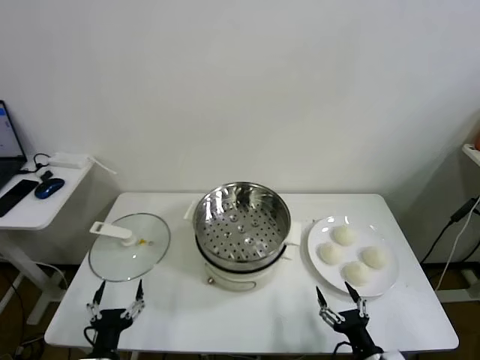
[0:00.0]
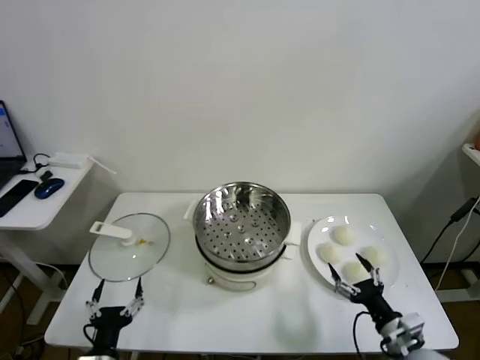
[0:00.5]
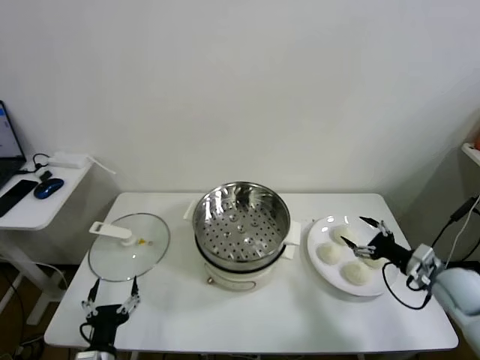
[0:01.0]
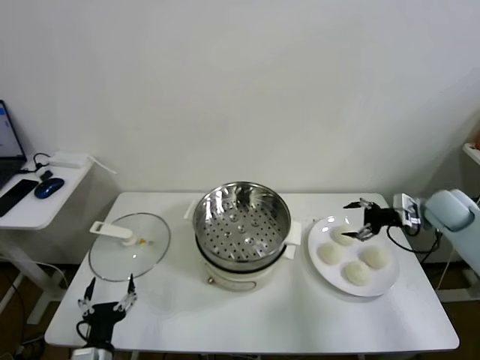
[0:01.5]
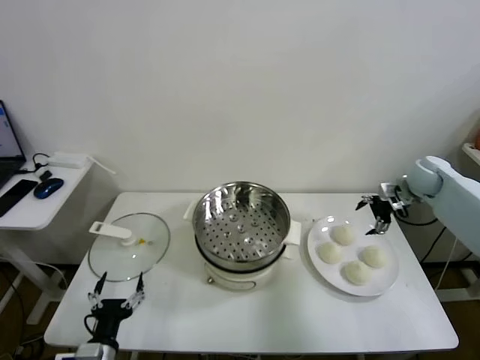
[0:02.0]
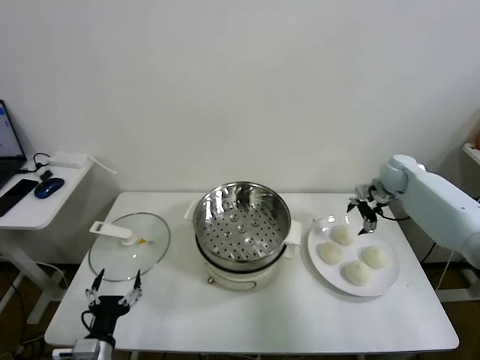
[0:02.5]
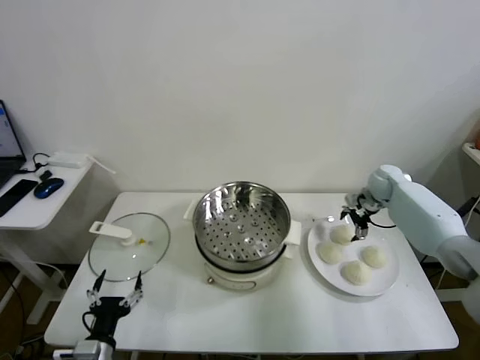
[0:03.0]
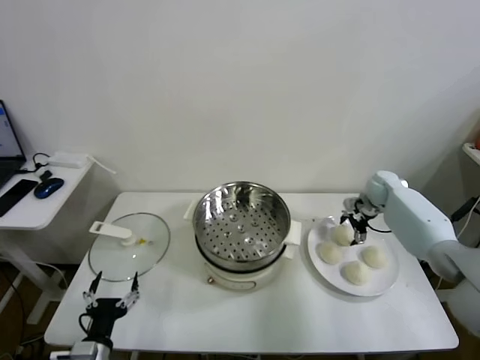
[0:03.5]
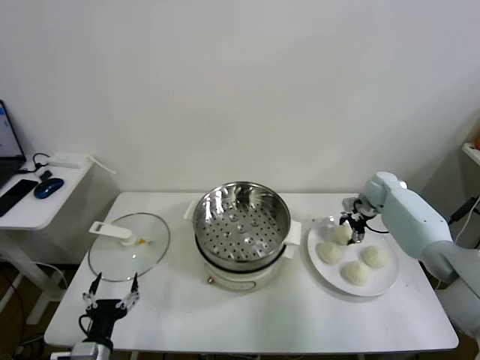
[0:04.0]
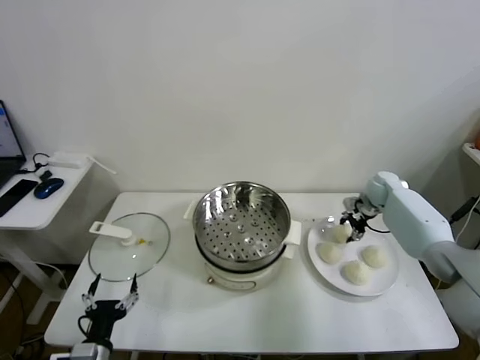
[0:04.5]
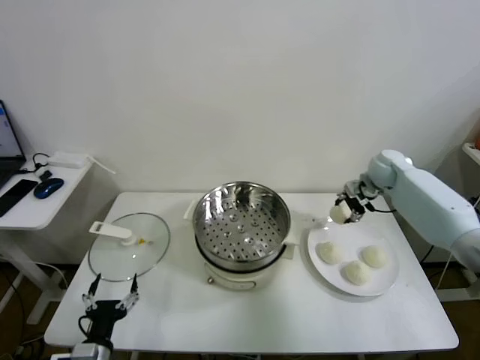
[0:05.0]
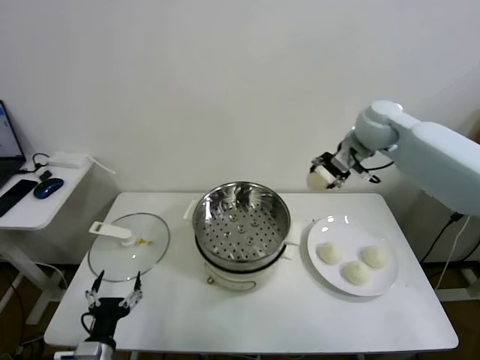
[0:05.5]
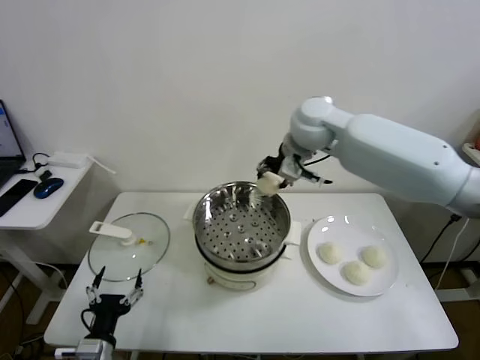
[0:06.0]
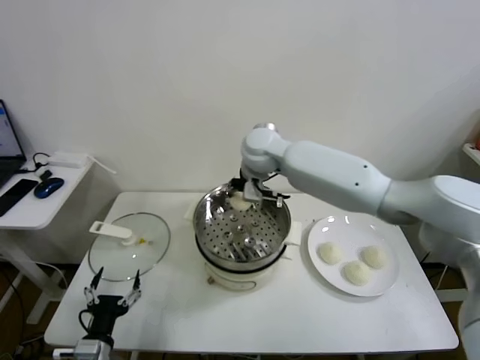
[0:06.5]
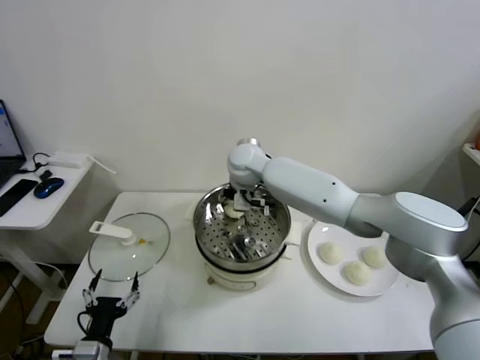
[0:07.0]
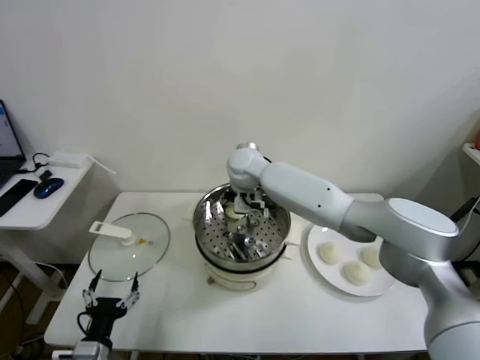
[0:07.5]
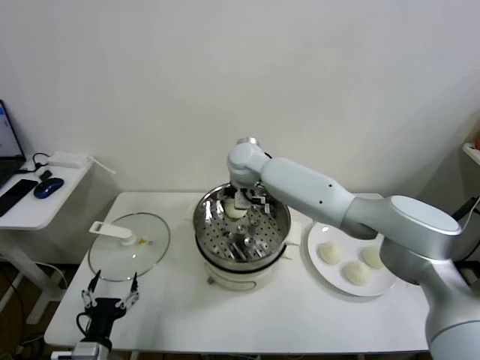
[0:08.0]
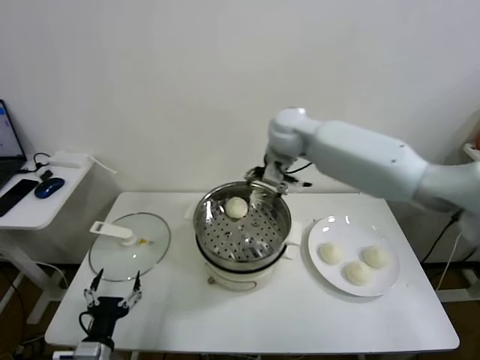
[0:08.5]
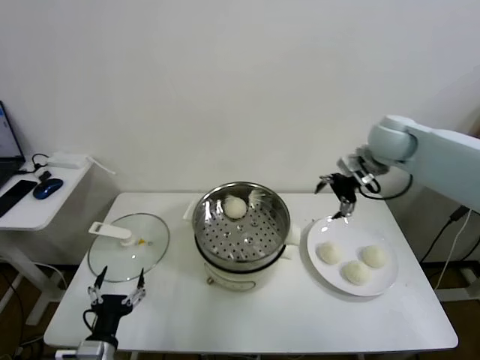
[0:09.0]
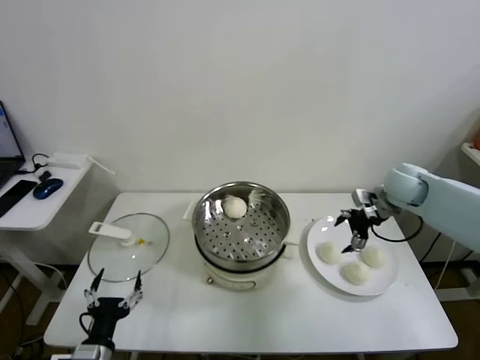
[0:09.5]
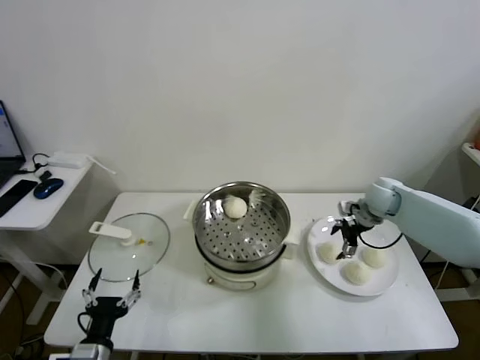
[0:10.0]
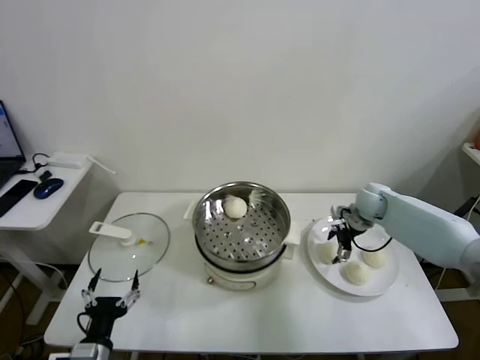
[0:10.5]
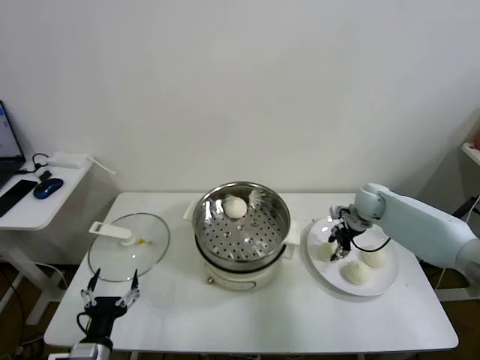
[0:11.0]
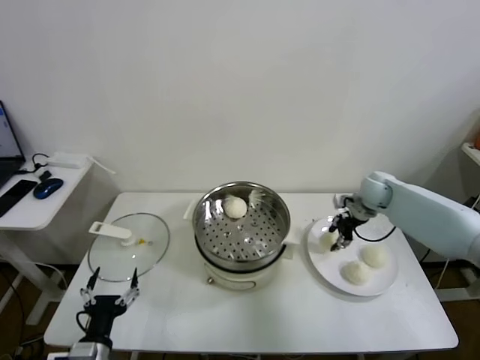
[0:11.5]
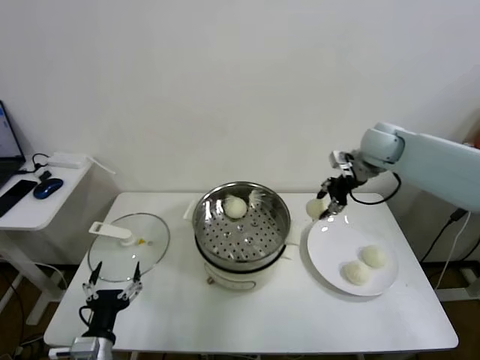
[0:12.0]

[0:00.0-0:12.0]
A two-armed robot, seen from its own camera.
Task of the whole recording: take steamed baozi put them in steamer.
Step, 0:00.0 to 0:04.0: Grasp the baozi in the plate with right gripper.
Step, 0:04.5 to 0:08.0: Place the baozi on the steamer with right gripper.
Step, 0:08.5 to 0:11.0: Grasp the baozi in the plate with right gripper.
0:02.0 to 0:04.0: The right gripper is displaced downward by some 10 cm, and closes its fingers.
0:04.0 to 0:06.0: The right gripper shifts some 40 cm to the left and upward.
0:06.0 to 0:08.0: The right gripper goes roughly 15 cm to the left and downward, and opens its fingers.
0:08.0 to 0:10.0: The right gripper is displaced to the right by some 35 cm.
0:10.0 to 0:12.0: The right gripper travels upward by about 15 cm, and closes up.

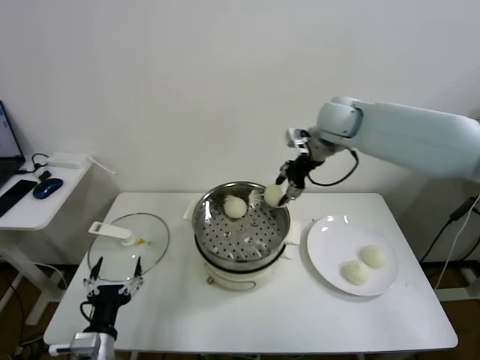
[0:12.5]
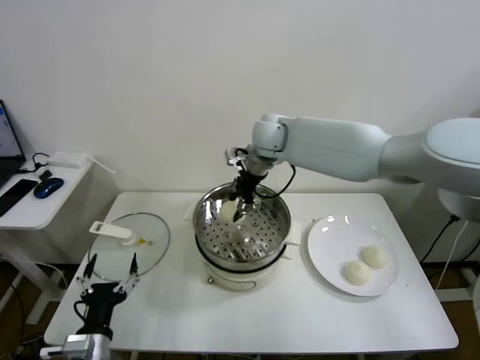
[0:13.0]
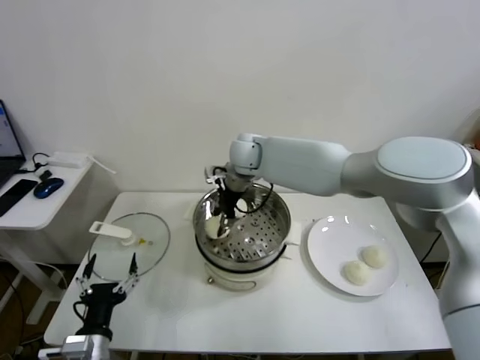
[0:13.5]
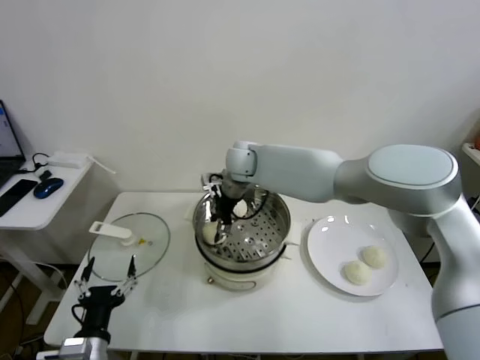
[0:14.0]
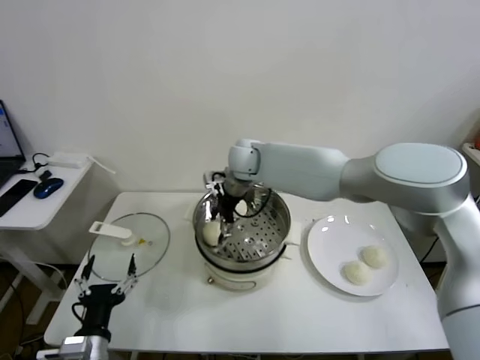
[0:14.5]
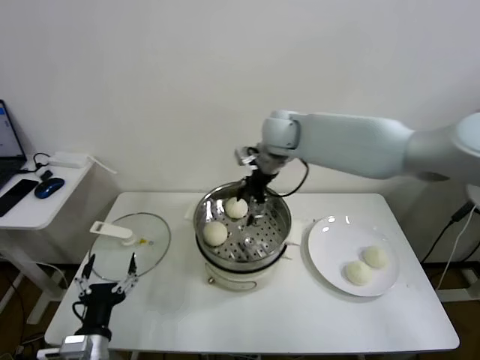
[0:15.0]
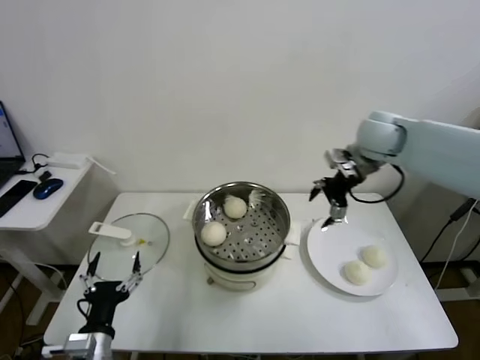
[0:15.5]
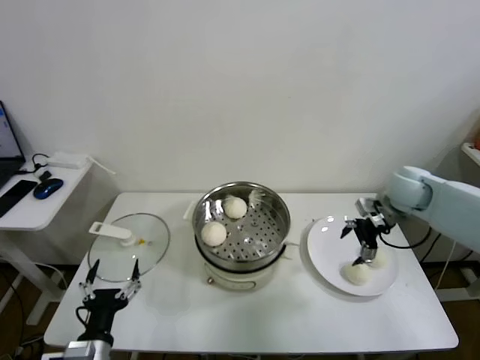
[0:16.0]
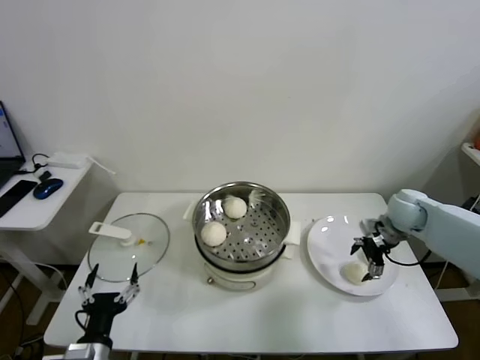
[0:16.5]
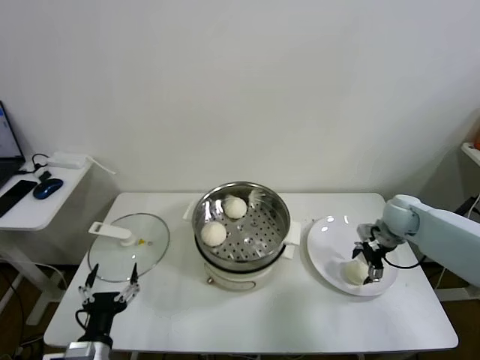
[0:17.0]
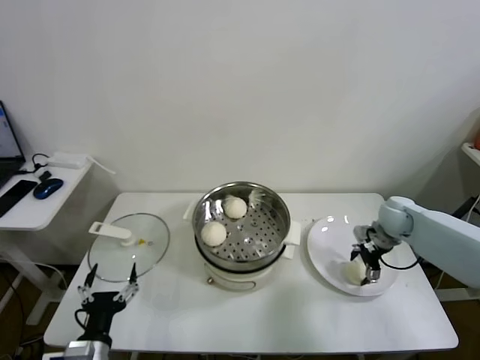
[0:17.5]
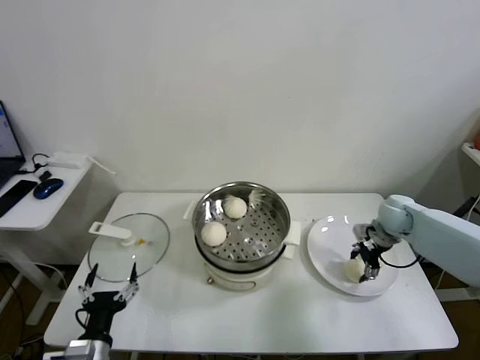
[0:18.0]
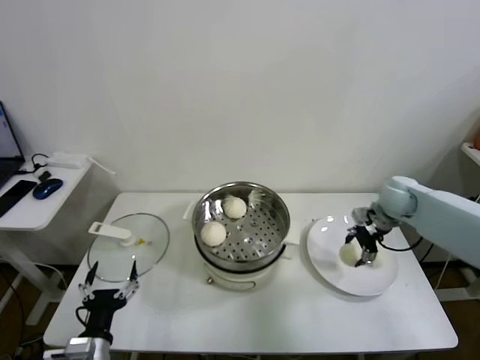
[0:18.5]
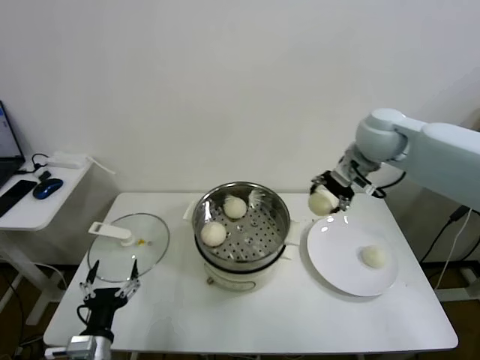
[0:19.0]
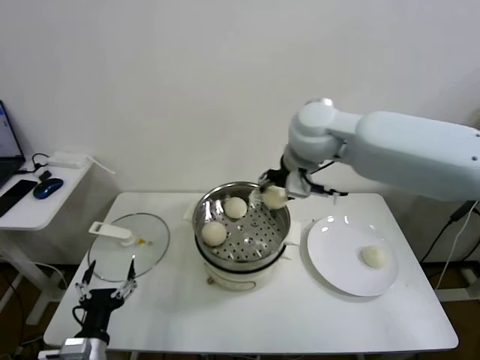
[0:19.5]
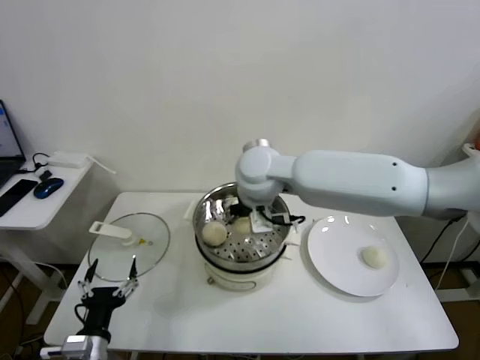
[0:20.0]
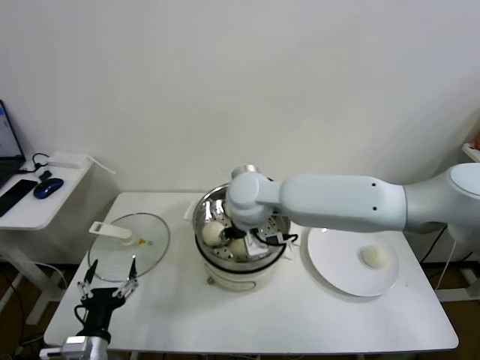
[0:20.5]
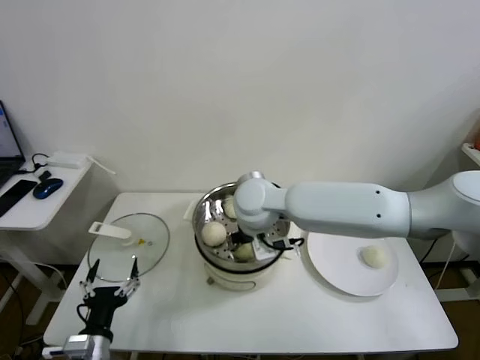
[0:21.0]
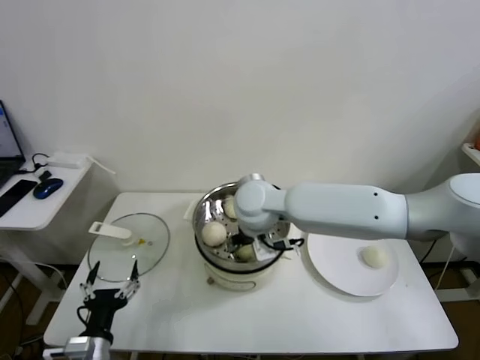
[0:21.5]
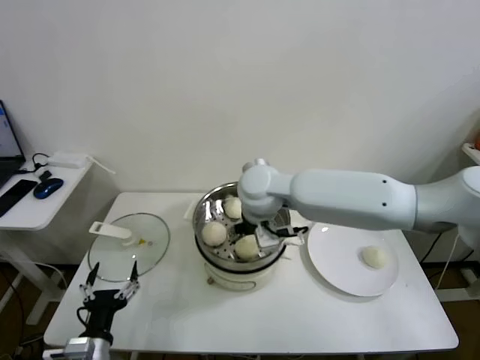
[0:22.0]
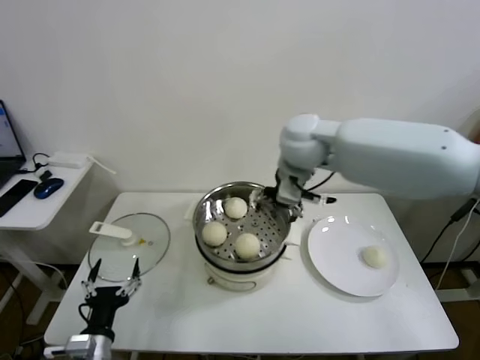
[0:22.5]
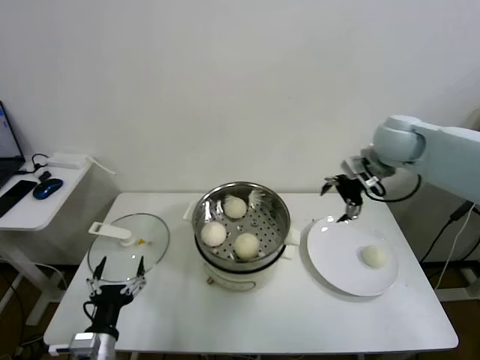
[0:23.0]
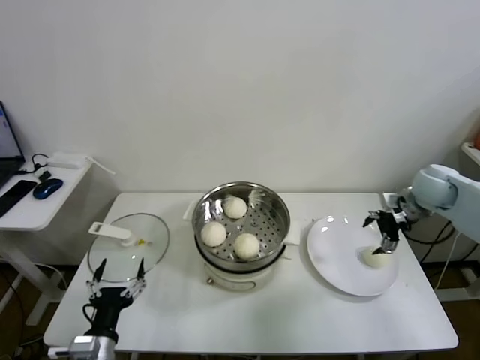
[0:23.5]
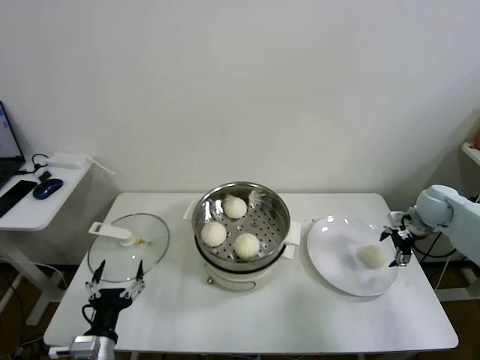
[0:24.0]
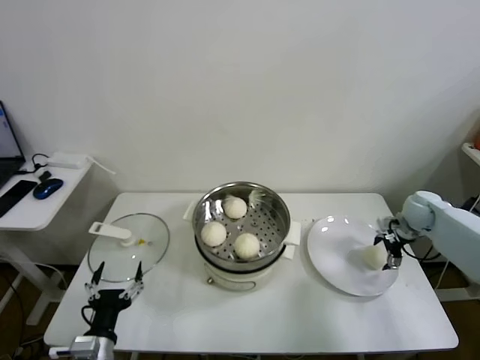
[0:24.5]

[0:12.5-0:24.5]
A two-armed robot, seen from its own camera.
Task of the whole recording: take steamed baozi put them in steamer.
Step, 0:12.5 to 0:14.5: Place the baozi on the steamer with right gripper.
Step, 0:15.0 to 0:17.5: Grasp the baozi in the plate with right gripper.
Step, 0:18.0 to 0:21.5: Place the baozi on the steamer with right gripper.
0:12.5 to 0:14.5: The right gripper goes some 20 cm to the left and downward, and opens up.
0:14.5 to 0:16.5: The right gripper goes about 40 cm to the right.
0:16.5 to 0:18.5: The right gripper closes its fingers.
0:18.5 to 0:20.5: The right gripper is displaced to the left by roughly 35 cm.
0:20.5 to 0:22.5: The right gripper heads to the right, upward and forward, covering approximately 15 cm, and opens.
0:22.5 to 0:24.5: The right gripper heads to the right and downward, covering roughly 40 cm.

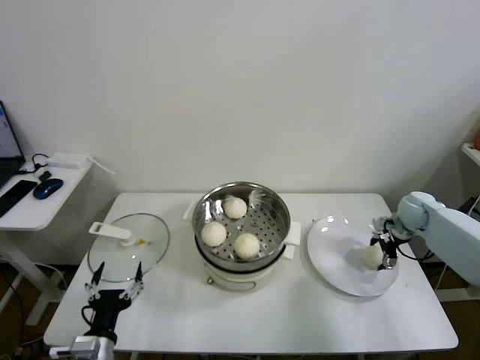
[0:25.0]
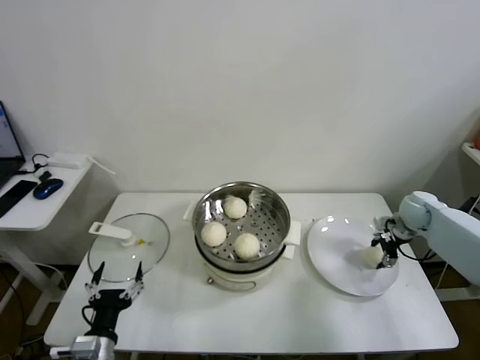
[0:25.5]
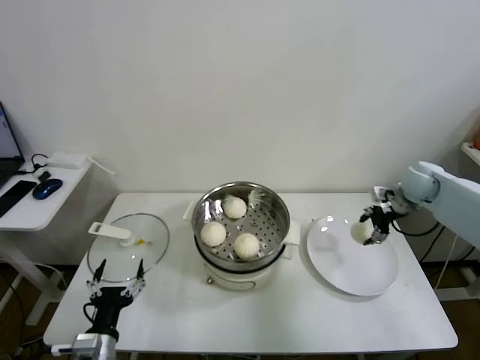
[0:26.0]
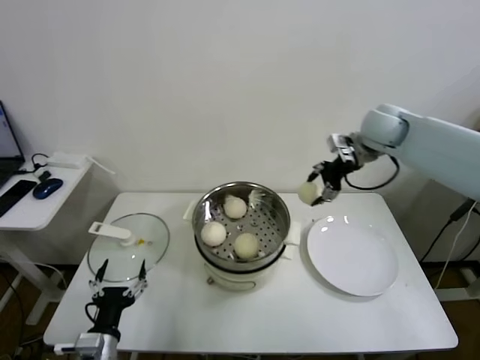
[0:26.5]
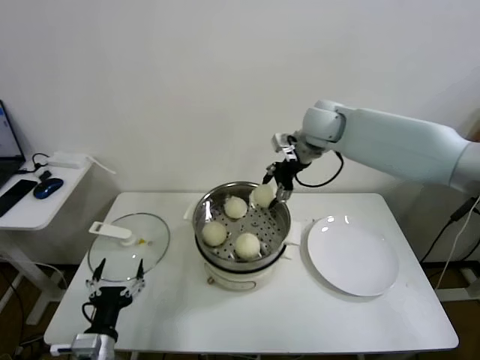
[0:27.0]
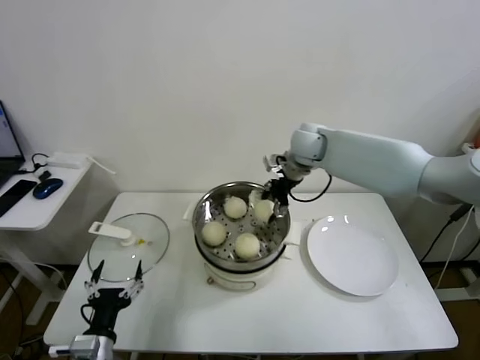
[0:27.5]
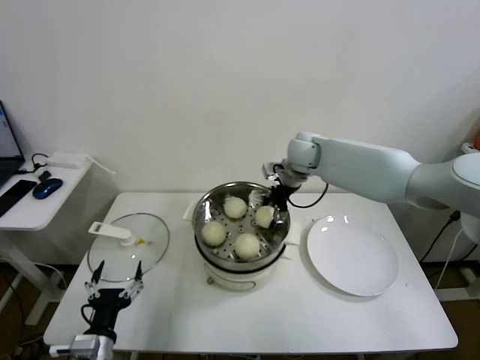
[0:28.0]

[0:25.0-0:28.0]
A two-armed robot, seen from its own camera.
Task of the whole recording: take steamed baozi put them in steamer.
0:25.0 to 0:26.5: The right gripper shifts about 25 cm upward and to the left, and closes its fingers.
0:26.5 to 0:28.0: The right gripper goes some 20 cm to the left and downward.
